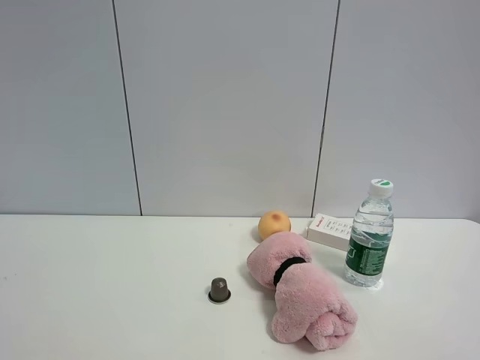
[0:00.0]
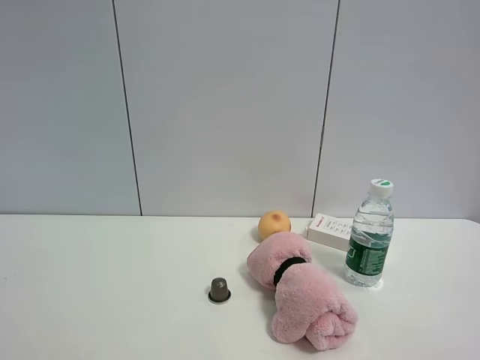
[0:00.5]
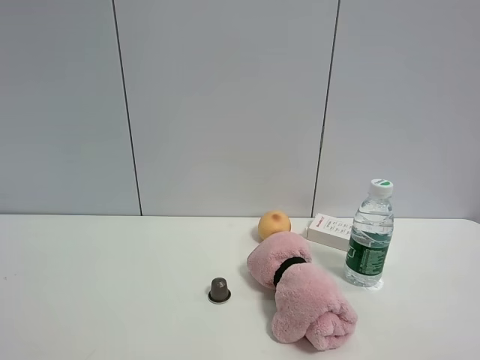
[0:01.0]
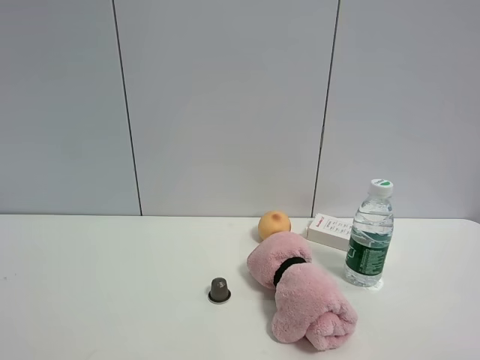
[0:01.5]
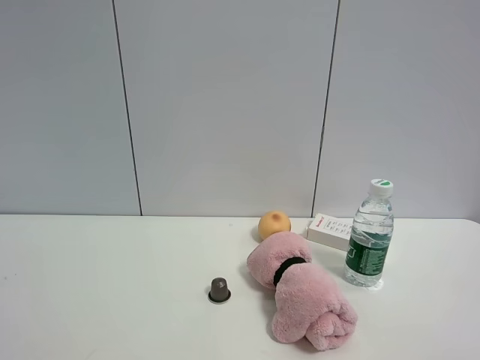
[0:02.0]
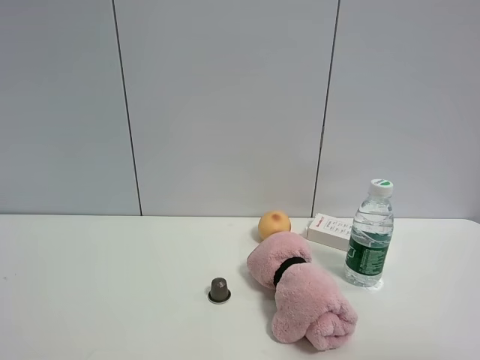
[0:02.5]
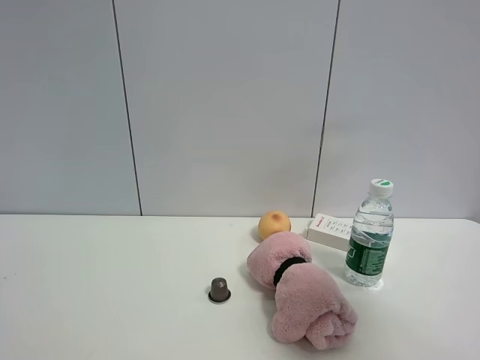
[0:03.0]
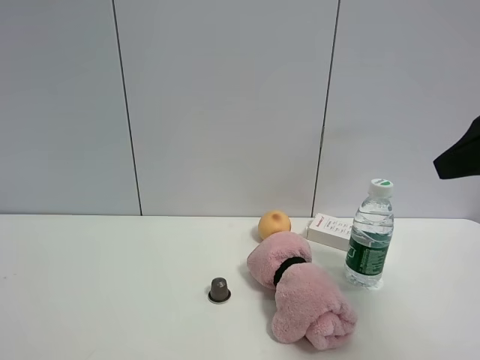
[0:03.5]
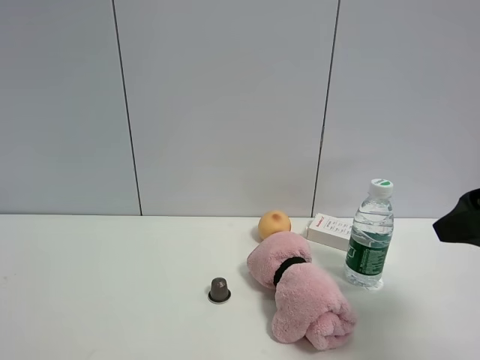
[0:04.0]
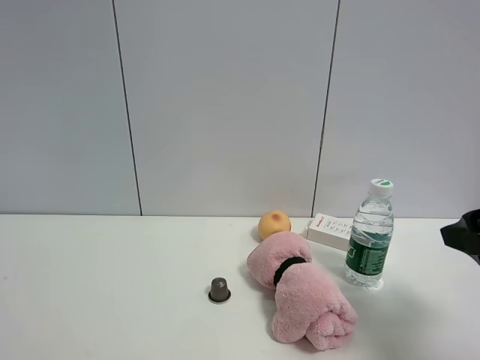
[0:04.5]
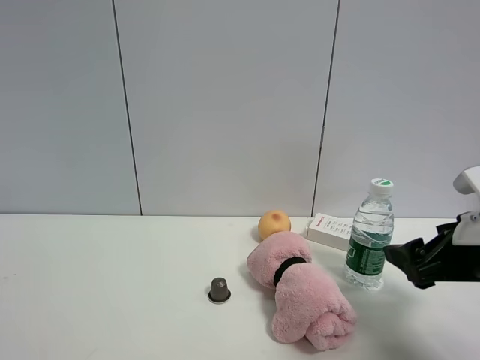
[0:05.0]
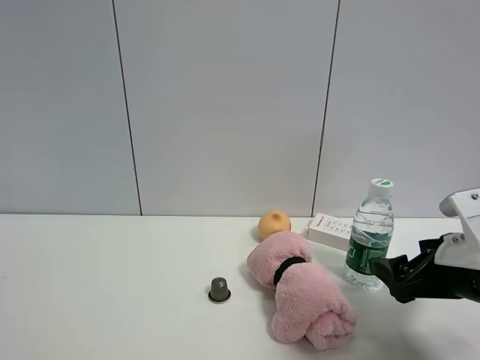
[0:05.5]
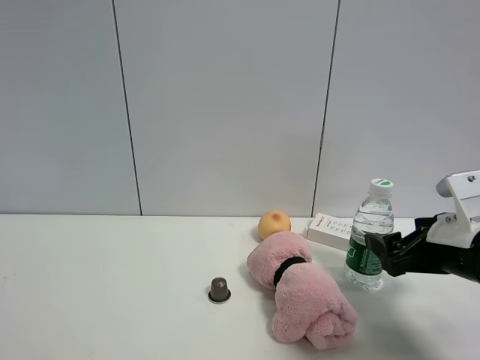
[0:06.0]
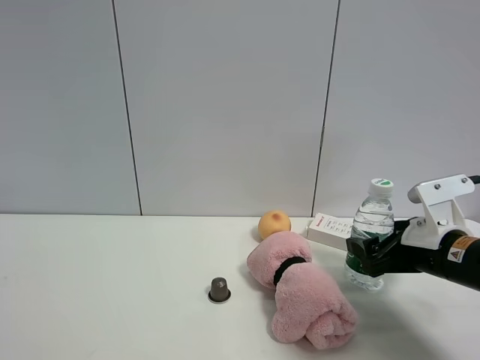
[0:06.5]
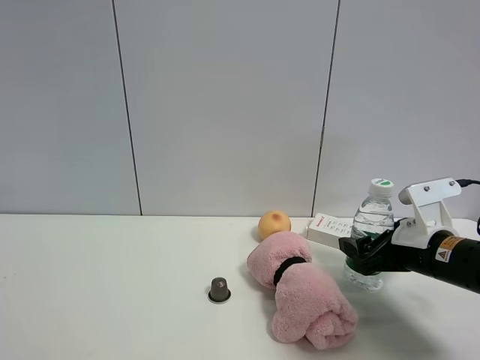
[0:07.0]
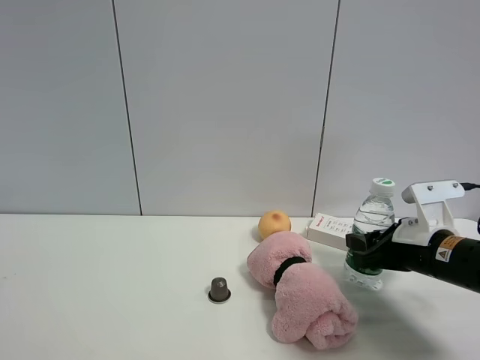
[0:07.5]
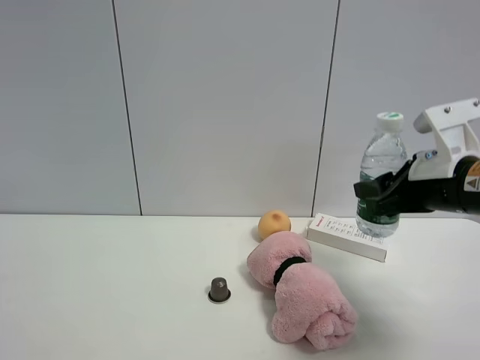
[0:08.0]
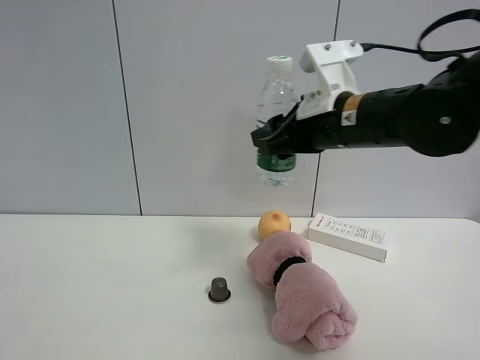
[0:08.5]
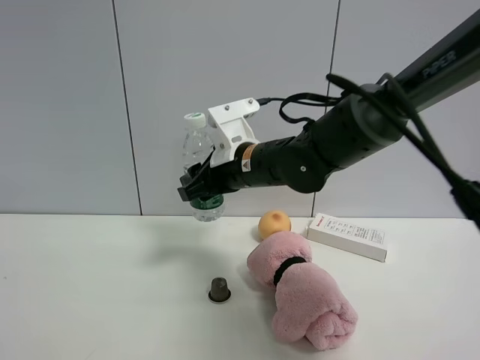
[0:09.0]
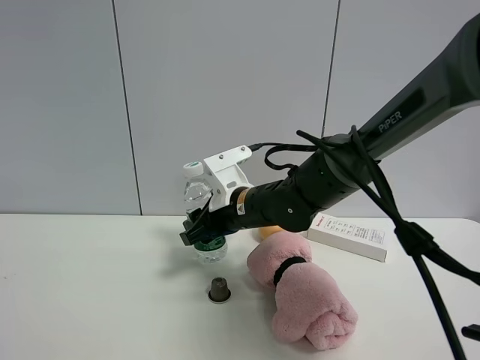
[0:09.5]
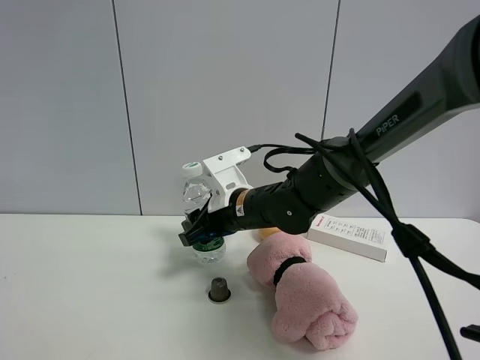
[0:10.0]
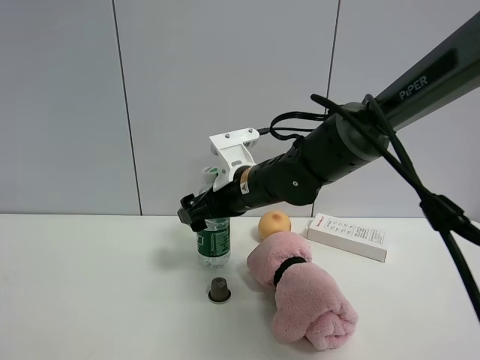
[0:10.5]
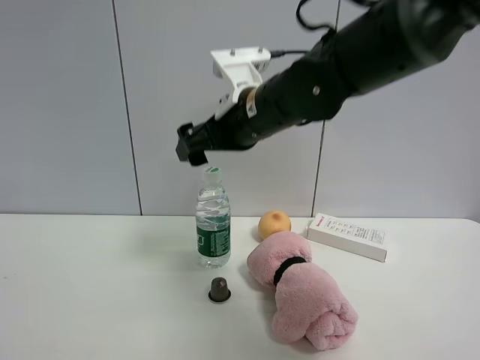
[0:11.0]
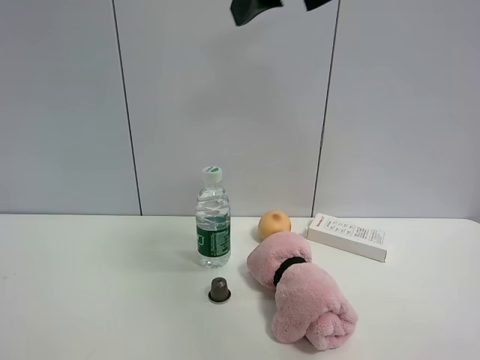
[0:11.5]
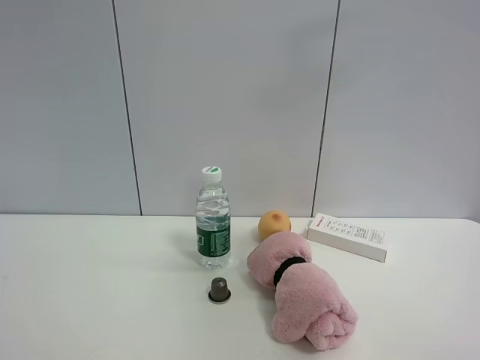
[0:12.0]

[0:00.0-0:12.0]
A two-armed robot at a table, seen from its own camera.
Task of the whole recording: the gripper move the object.
Step, 0:00.0 to 0:07.5: Grasp the YiBao mineral water with the right gripper.
Step, 0:08.0 to 0:11.0: Place the YiBao mineral water on the table with the right gripper.
0:02.0 to 0:04.0: The right gripper shifts approximately 20 cm forward.
0:04.0 to 0:06.0: The right gripper shifts roughly 15 cm downward and forward.
0:06.0 to 0:08.0: The right gripper shifts some 10 cm upward, and closes its fingers.
0:08.0 to 0:10.0: The right gripper heads to the left, forward and downward, covering roughly 25 cm.
0:10.0 to 0:12.0: The right gripper is displaced upward, to the right and backward by about 40 cm, and opens up.

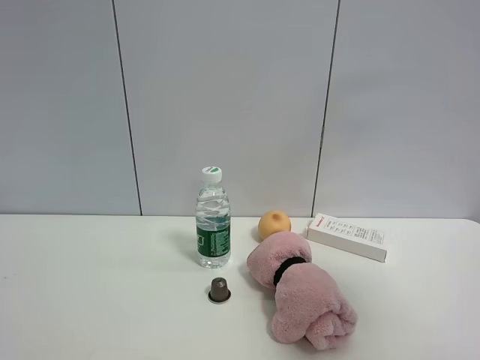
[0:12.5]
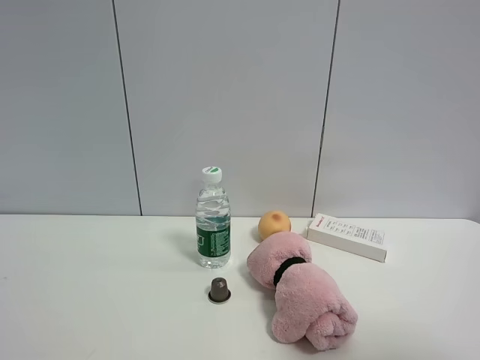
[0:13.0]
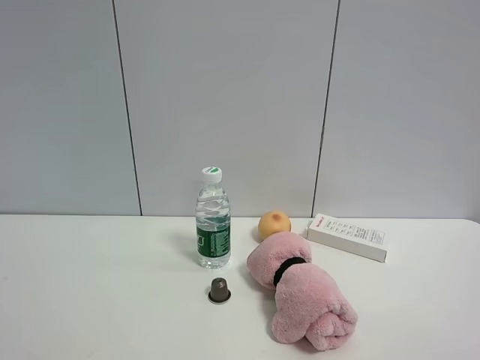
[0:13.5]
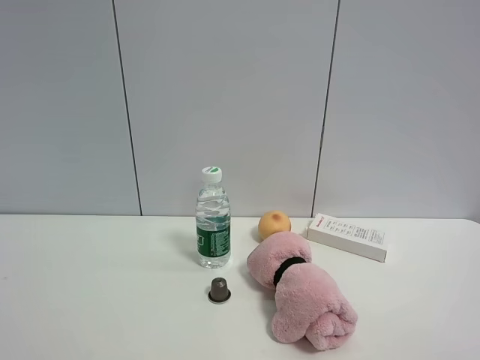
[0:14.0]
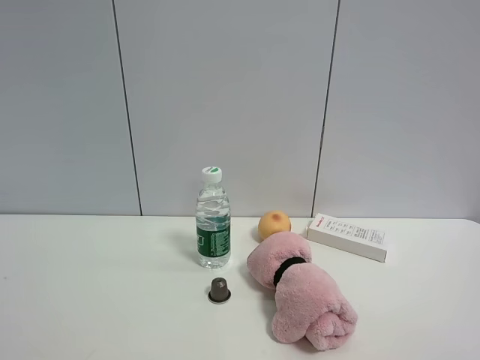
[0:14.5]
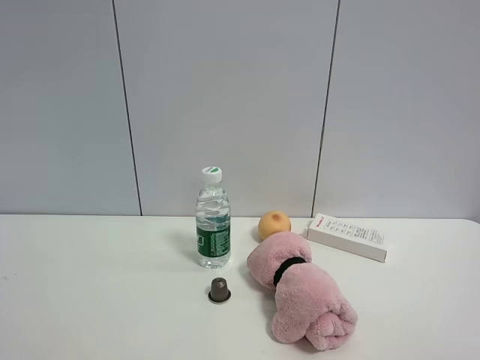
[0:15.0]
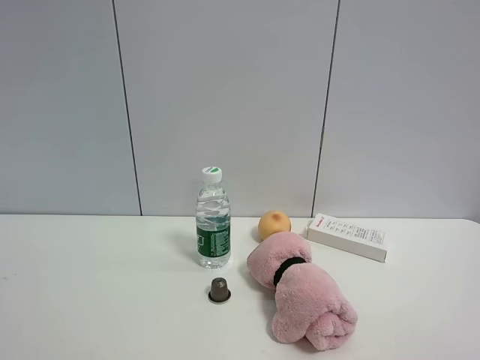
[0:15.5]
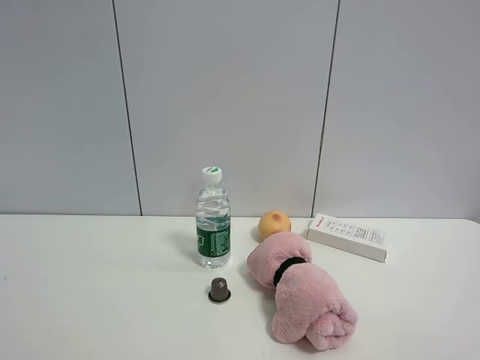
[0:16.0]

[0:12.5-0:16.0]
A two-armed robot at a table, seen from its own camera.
Task of the whole recording: the gripper move the object.
0:12.5 to 0:14.5: The right gripper heads backward and downward, covering some 20 cm.
0:14.5 to 0:16.0: Both grippers stay put.

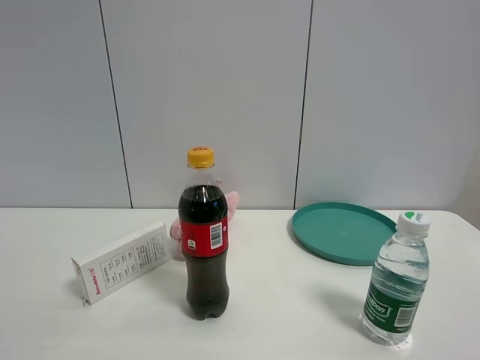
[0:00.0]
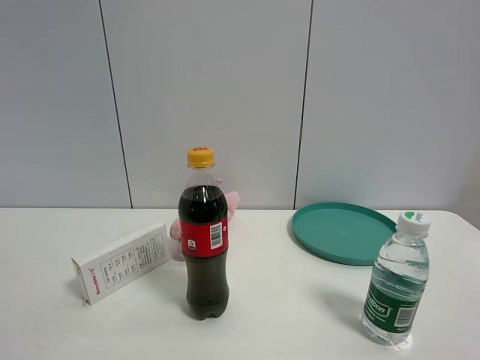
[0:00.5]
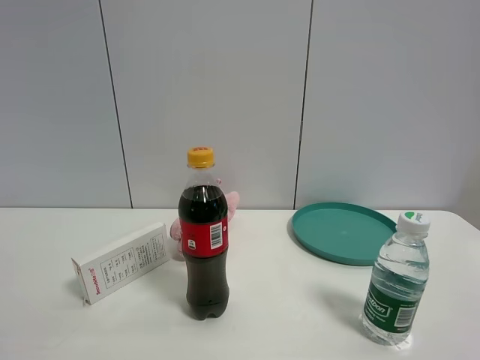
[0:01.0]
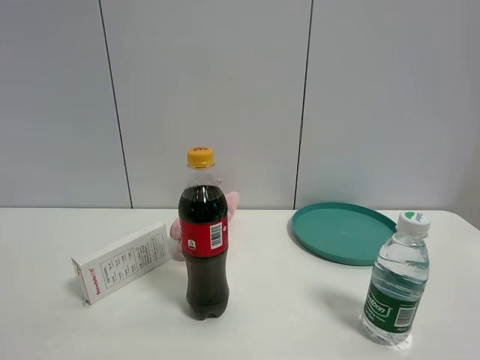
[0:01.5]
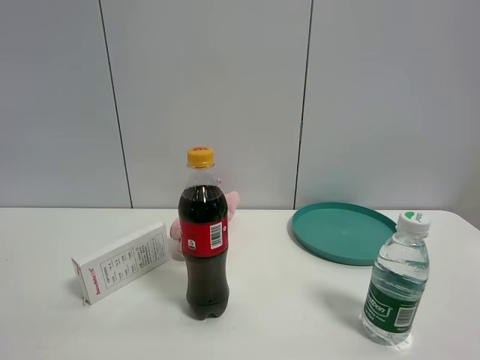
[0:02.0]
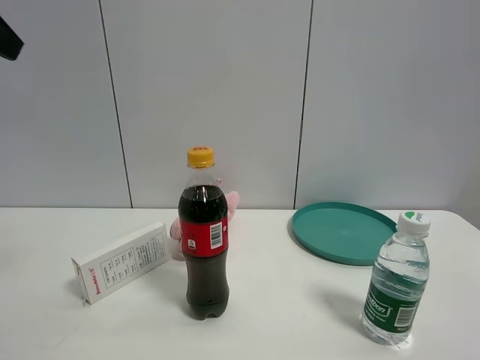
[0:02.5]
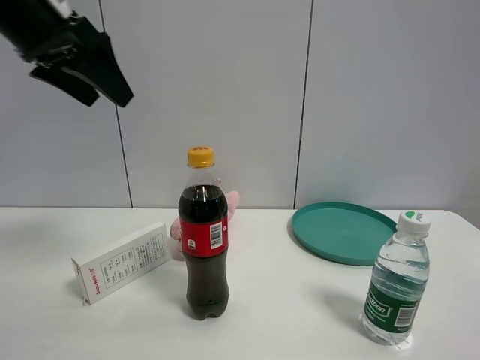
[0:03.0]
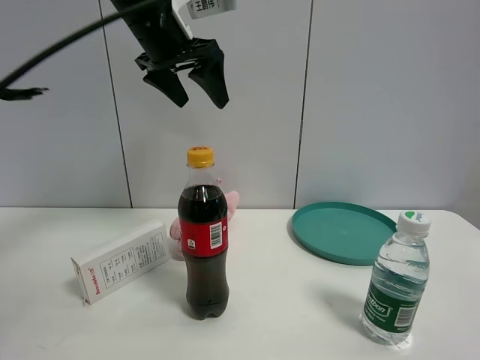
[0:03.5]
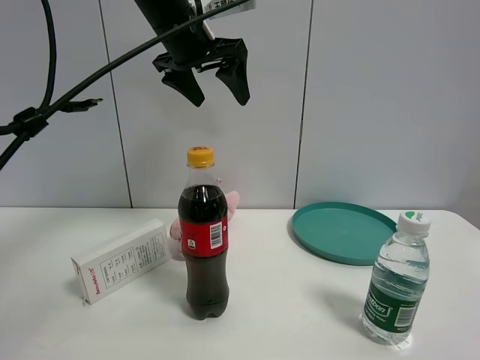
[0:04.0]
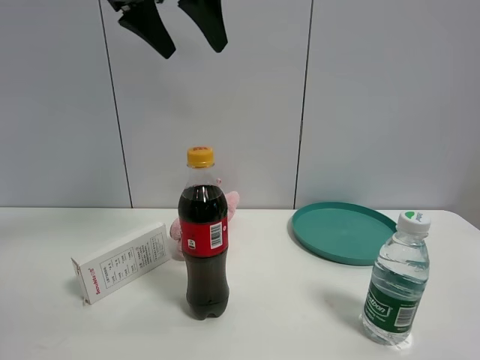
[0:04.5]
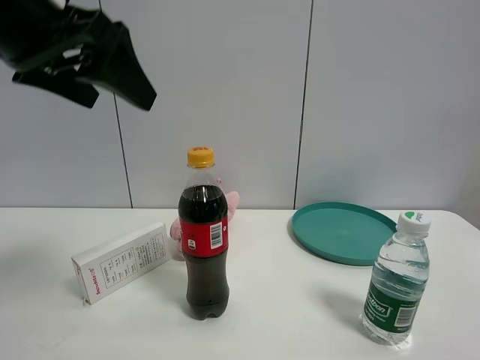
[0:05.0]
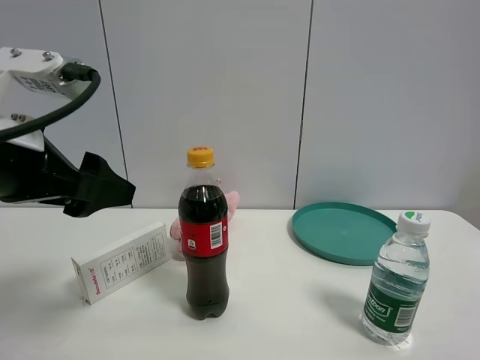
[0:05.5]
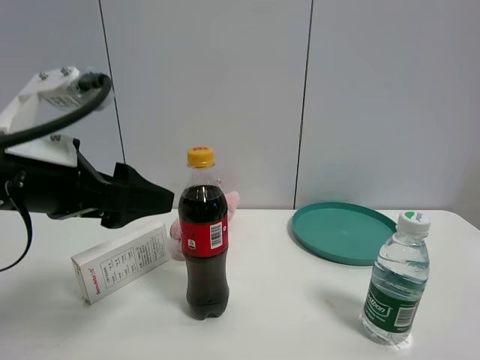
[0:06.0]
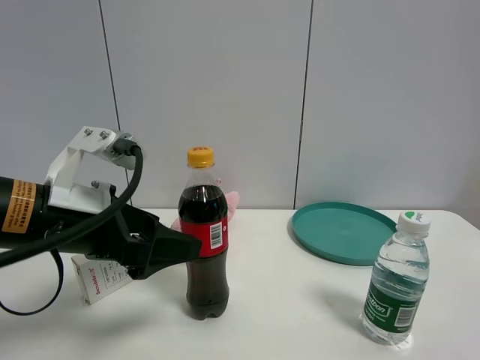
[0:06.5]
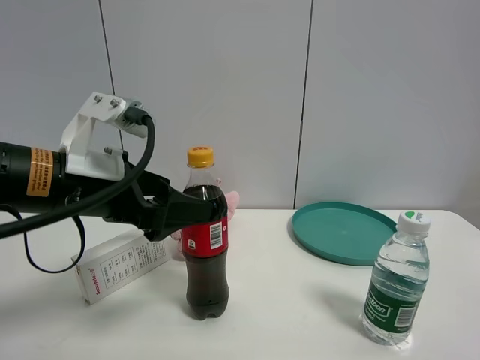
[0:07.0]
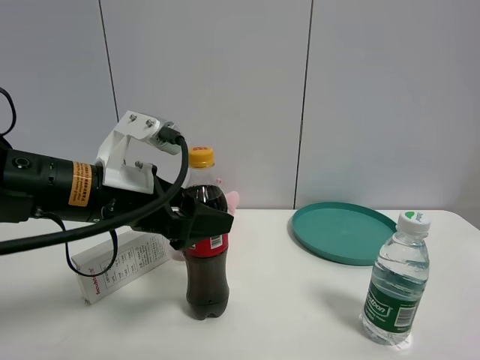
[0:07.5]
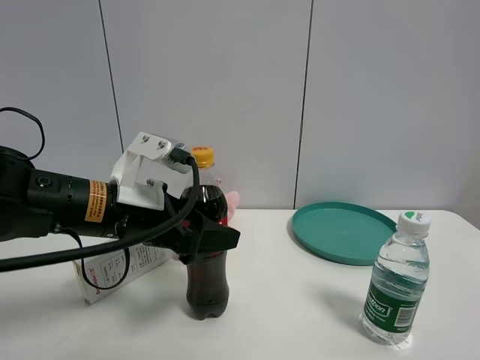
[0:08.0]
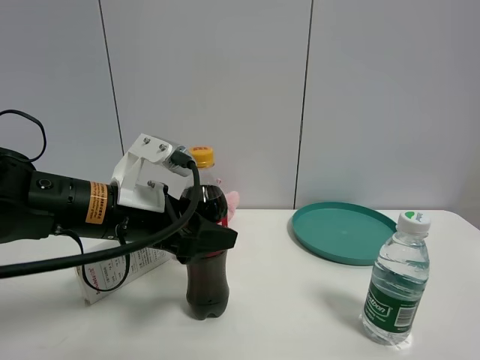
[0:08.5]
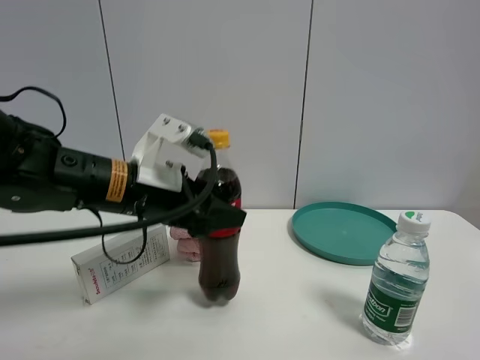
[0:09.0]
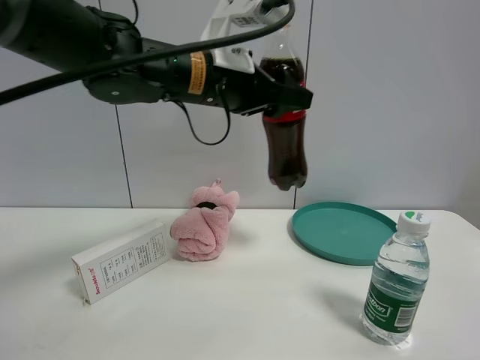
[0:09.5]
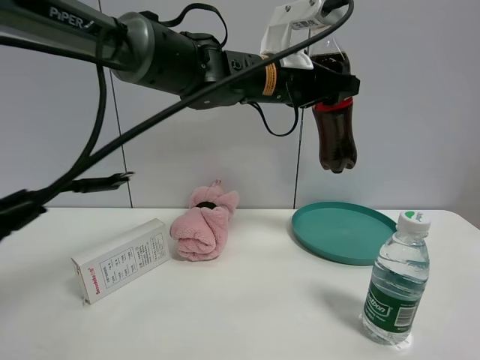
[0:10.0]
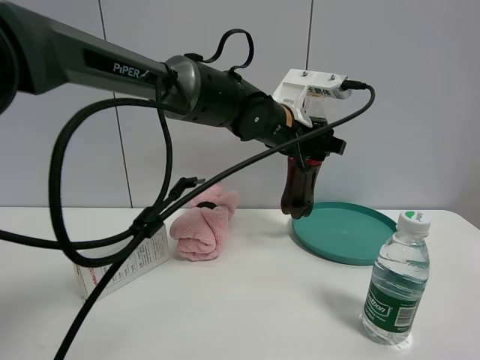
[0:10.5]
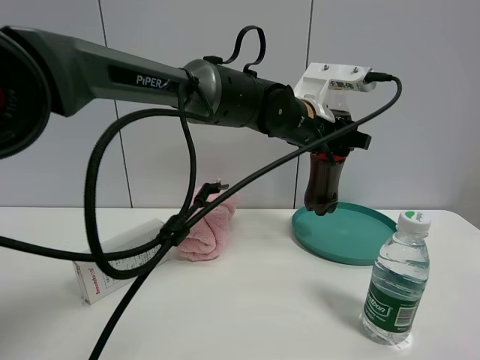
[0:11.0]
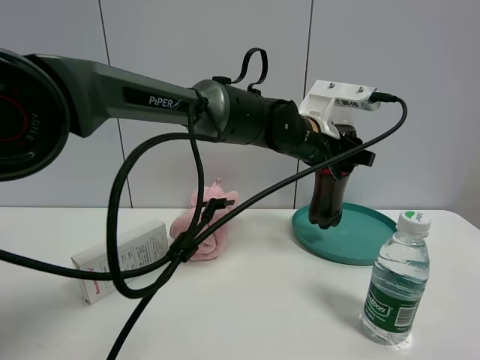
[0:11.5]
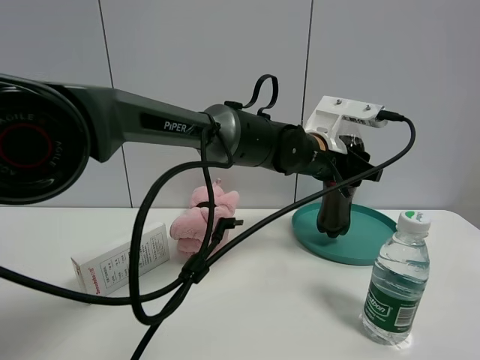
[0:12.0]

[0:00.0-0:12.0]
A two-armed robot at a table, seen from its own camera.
Task of the whole recording: the gripper move the object.
Step, 0:00.0 to 0:08.5: Grasp the coke with the left gripper.
0:02.0 to 0:04.0: The left gripper goes some 40 cm forward and to the right.
0:04.0 to 0:06.0: The left gripper shifts approximately 30 cm backward, downward and to the left.
0:06.0 to 0:08.0: The left gripper heads forward, downward and to the right, covering some 10 cm.
0:08.0 to 0:10.0: The left gripper is displaced to the right, forward and upward by some 25 cm, and closes.
0:10.0 to 0:12.0: The left gripper travels downward and to the right by approximately 10 cm.
